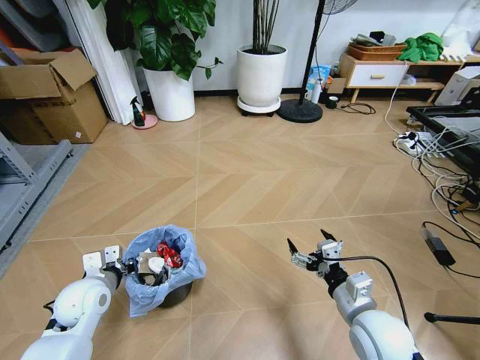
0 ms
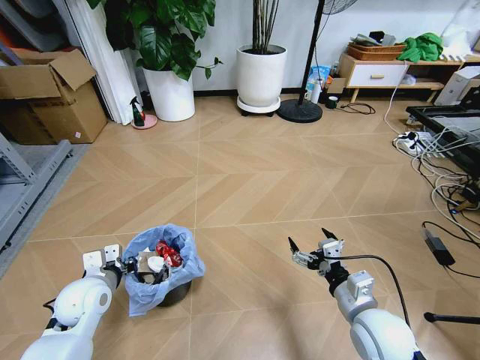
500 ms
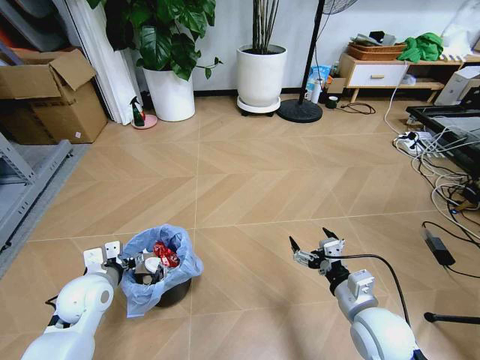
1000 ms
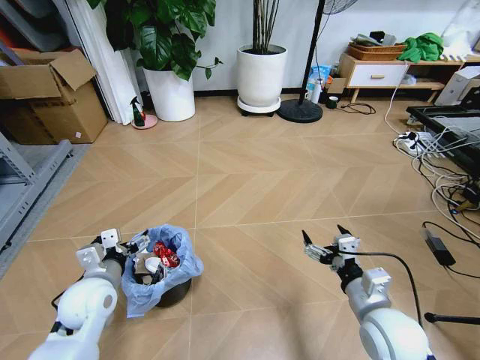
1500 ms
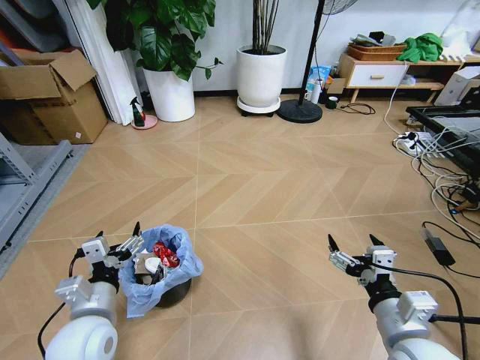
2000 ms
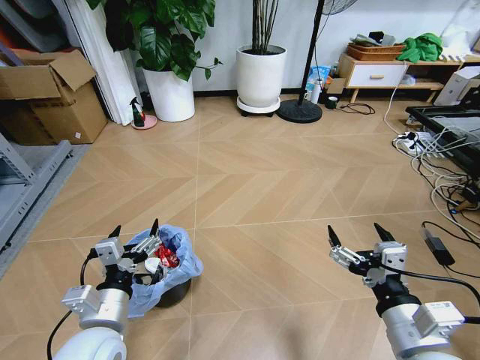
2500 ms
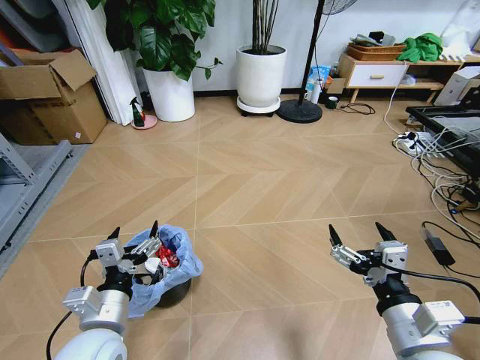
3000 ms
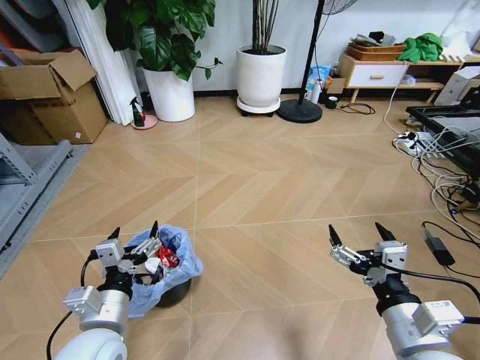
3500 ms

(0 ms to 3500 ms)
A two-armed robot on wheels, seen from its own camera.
Task of the whole recording: Pick up the trash bin and place the garbage on the floor into it.
0 ms - 2000 ms: The left gripper is displaced backward and to the right by roughly 10 cm, and opens up; the right gripper moves backward and upward, some 10 cm.
2000 ms - 3500 ms: There are only small adjustments of the grippers.
